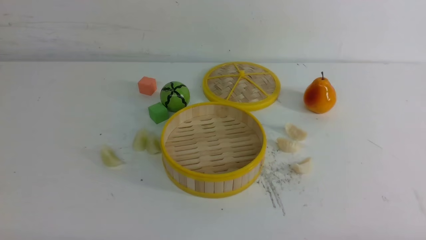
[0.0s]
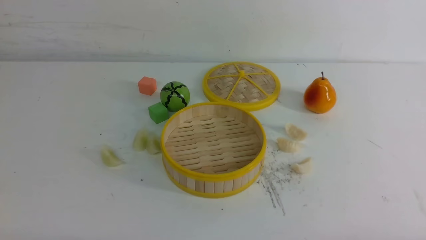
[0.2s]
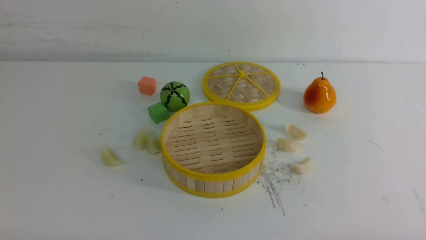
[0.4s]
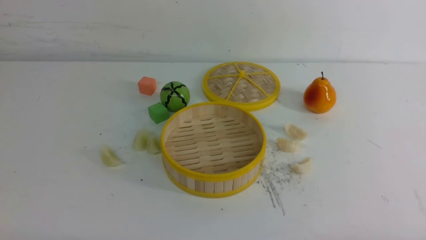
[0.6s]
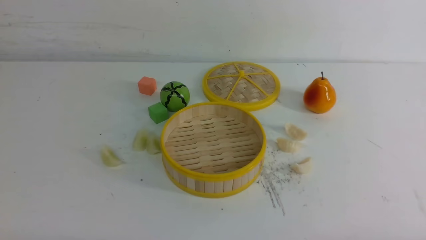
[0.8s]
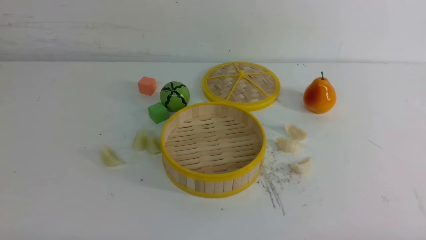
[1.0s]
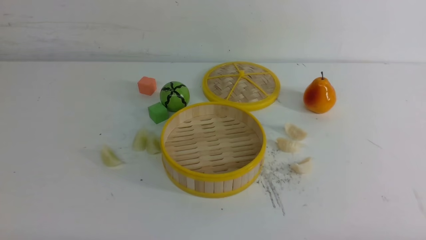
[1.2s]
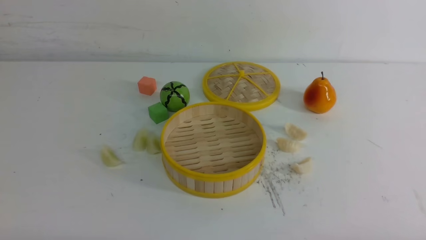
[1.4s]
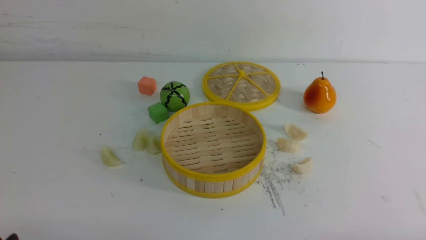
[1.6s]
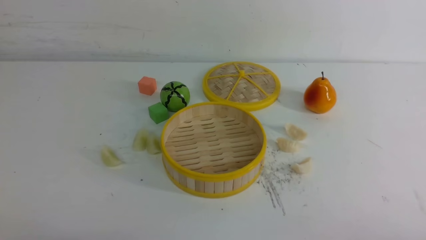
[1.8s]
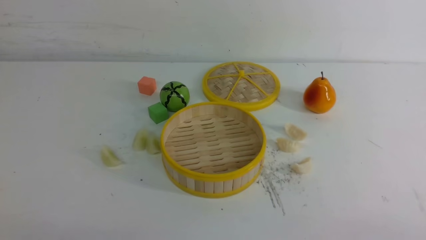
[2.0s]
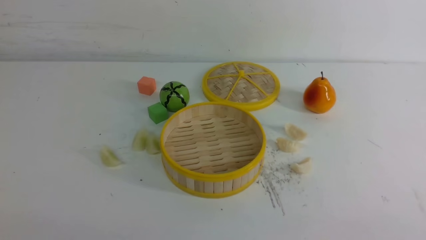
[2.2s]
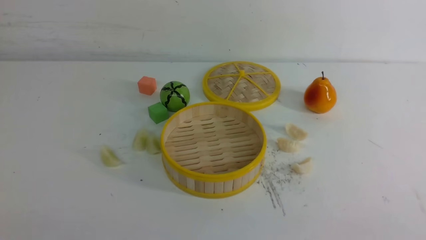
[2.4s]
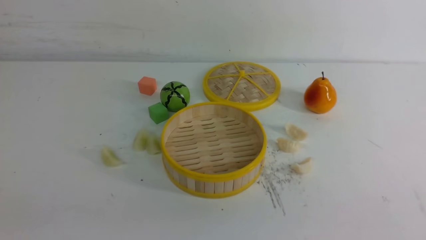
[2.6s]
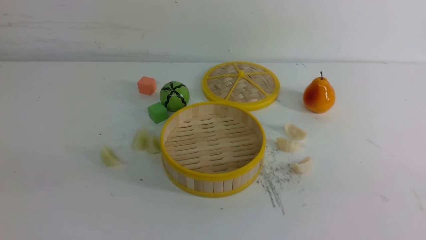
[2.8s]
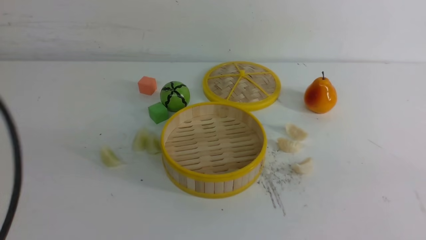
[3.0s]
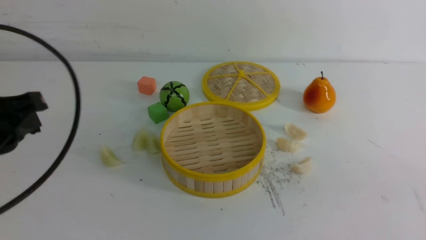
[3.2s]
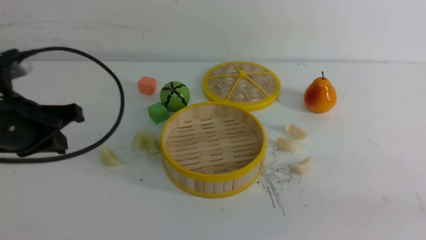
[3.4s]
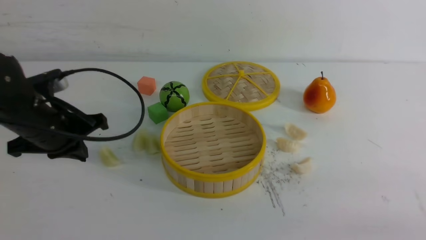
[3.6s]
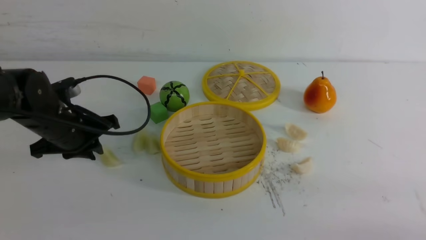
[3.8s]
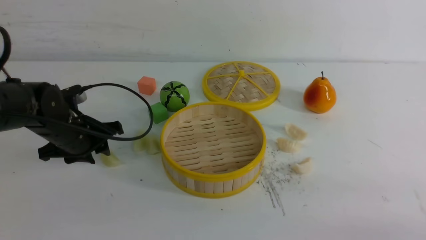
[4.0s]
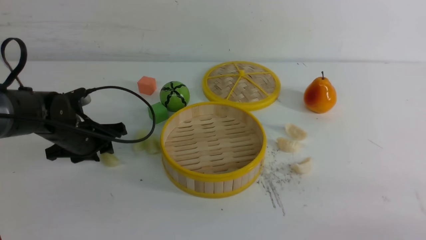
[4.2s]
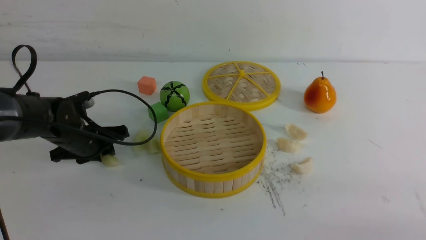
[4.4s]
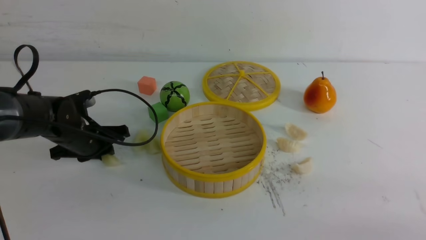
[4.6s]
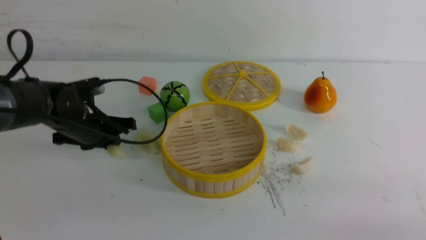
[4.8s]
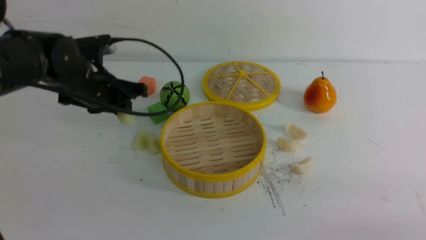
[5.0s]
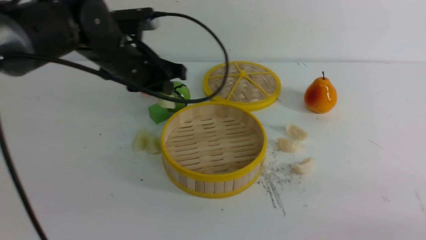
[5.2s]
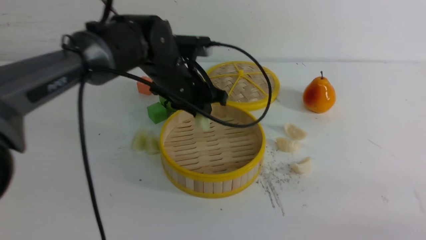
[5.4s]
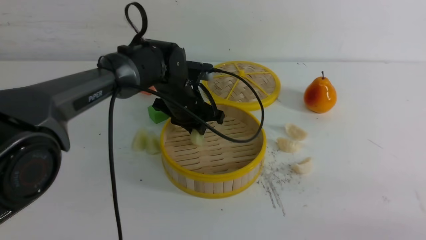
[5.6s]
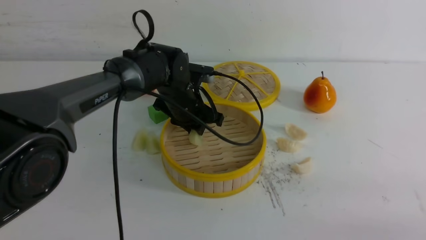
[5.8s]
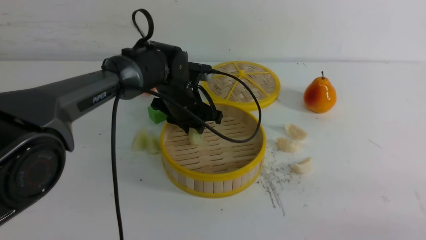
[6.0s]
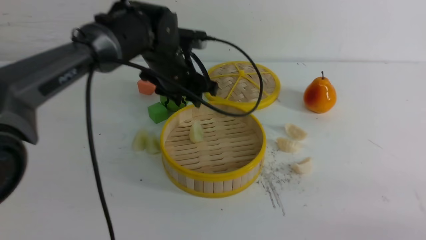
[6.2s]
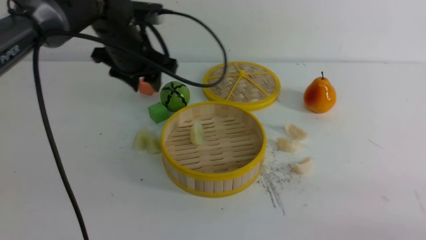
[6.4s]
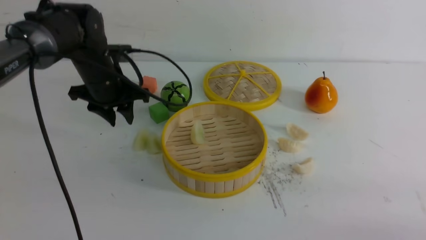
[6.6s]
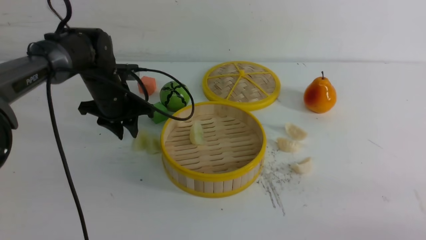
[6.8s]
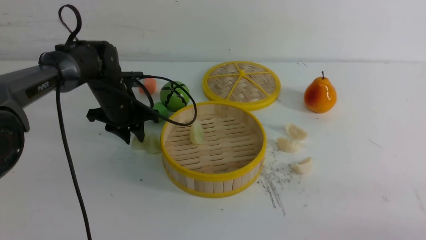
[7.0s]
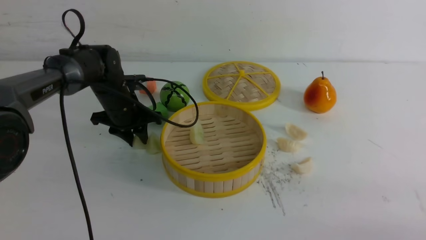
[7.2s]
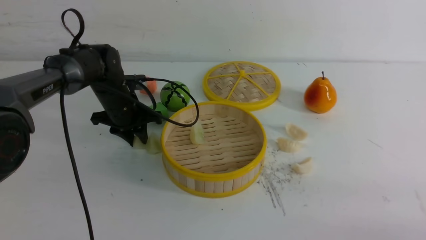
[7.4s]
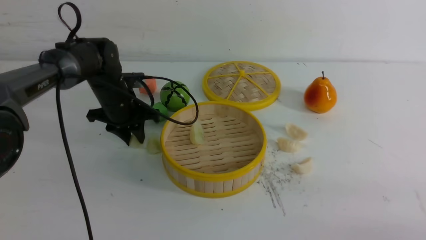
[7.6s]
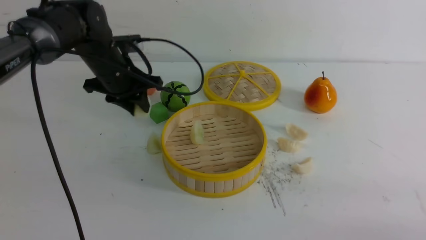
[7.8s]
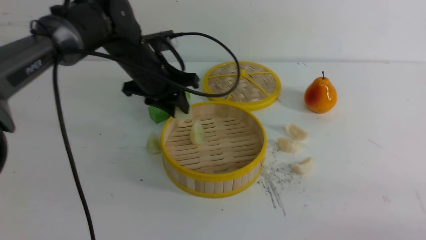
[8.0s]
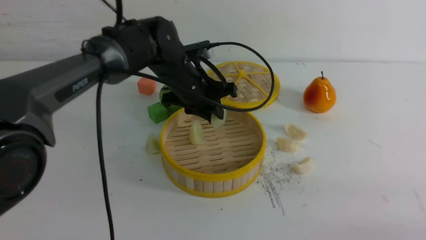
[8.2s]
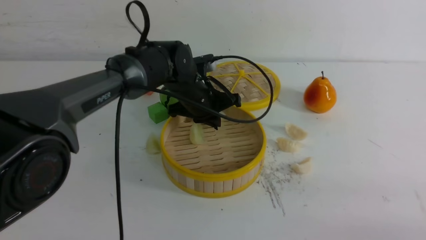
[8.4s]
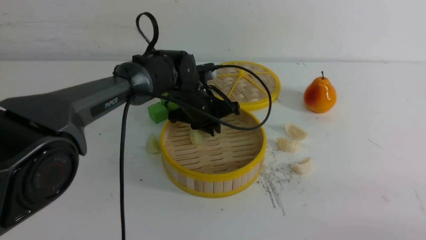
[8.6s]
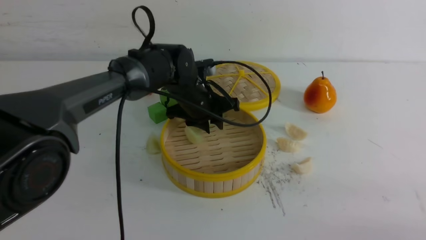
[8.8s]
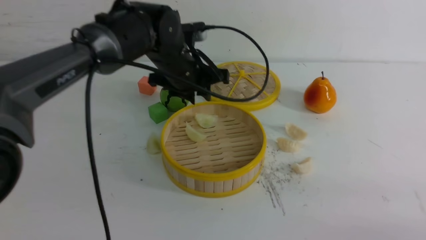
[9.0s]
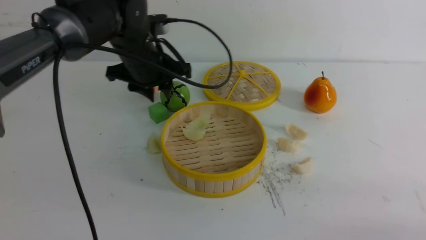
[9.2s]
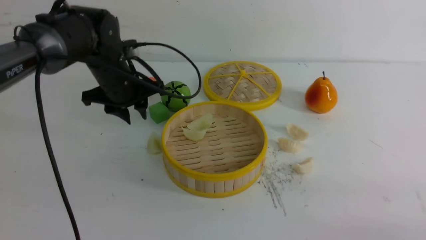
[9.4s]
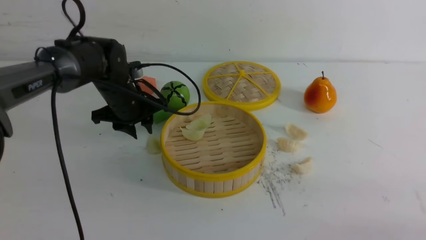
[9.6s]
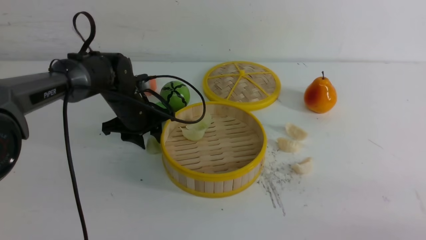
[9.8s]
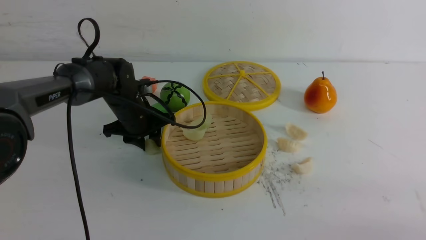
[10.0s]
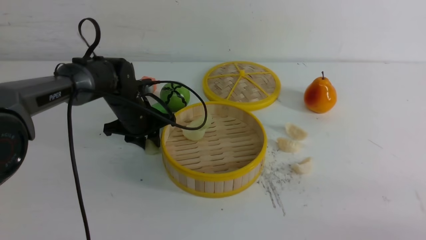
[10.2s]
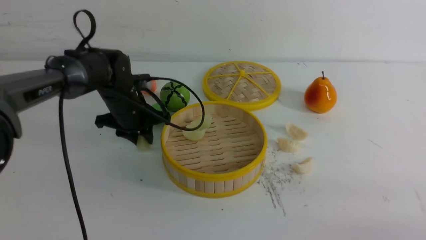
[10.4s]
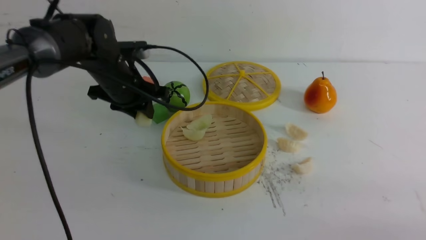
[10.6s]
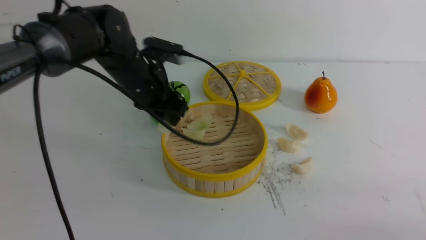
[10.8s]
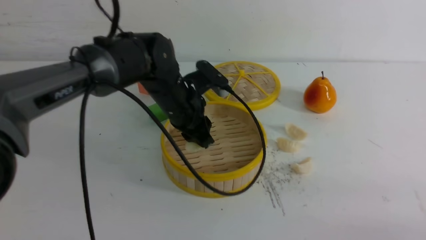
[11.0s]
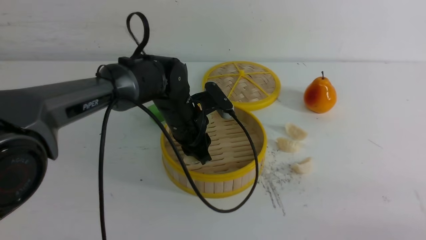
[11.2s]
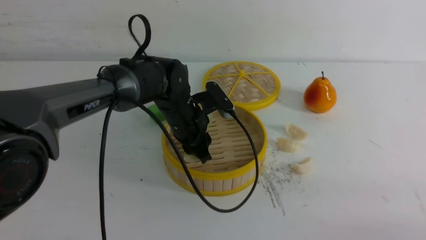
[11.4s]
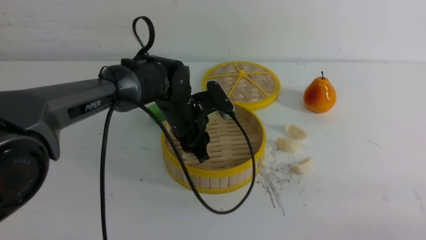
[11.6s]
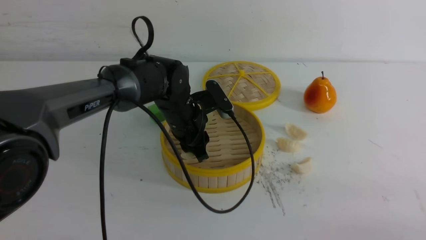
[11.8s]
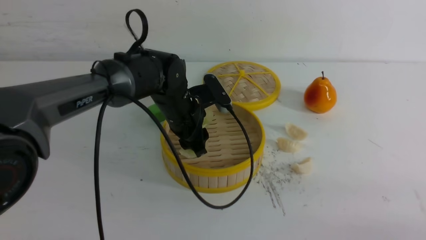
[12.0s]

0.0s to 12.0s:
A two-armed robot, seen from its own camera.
Task of the whole recording: put the dumplings into the steamer on the white table.
Step, 0.0s to 4.6s: use the left arm to grab a dumpling.
Step, 4.8s to 6.2s: use the left arm to put the dumpling into the steamer.
Step, 6.4s to 7.6s: use the left arm to grab a dumpling.
Step, 7.8s to 8.8s: use the left arm to put the dumpling into the steamer.
Step, 9.0s to 10.4s: use the left arm to grab a dumpling.
1.6s to 3.0s: The left gripper shifts roughly 20 cm upward and forward, and closes up.
3.0s to 4.4s: The left gripper shifts some 30 cm forward and downward, and opens.
4.4s to 6.0s: The left gripper is displaced to the right and upward by about 20 cm.
6.0s to 7.6s: The left gripper moves to the left, approximately 10 cm.
7.6s to 9.0s: The left gripper is displaced to the right and upward by approximately 10 cm, and closes, then opens again.
9.0s to 10.4s: The left gripper is displaced to the left and downward by approximately 10 cm.
10.4s to 12.0s: The left gripper shifts approximately 10 cm to the right.

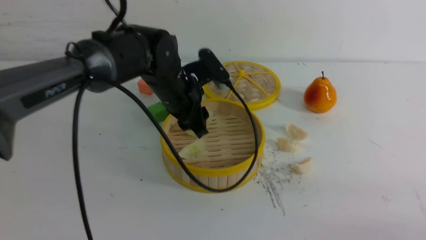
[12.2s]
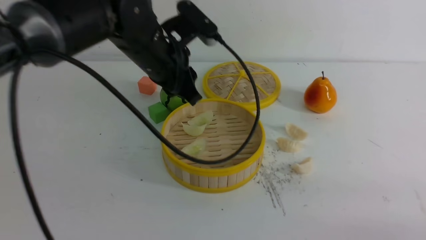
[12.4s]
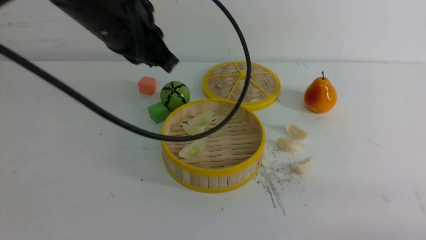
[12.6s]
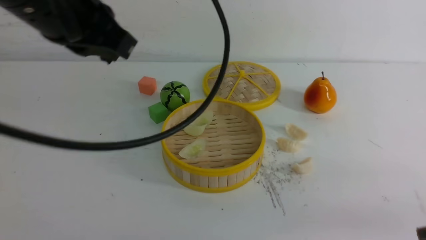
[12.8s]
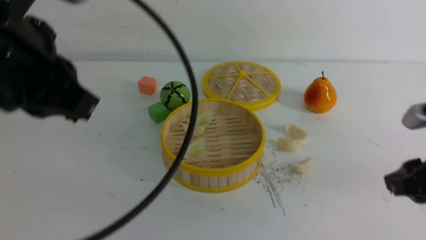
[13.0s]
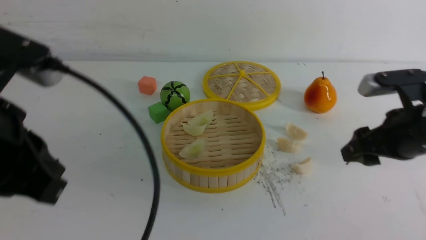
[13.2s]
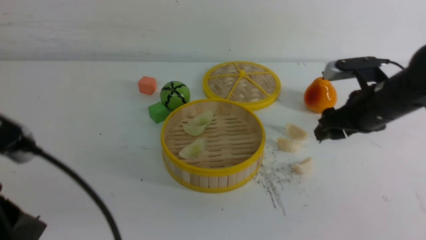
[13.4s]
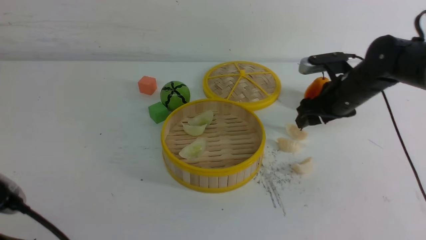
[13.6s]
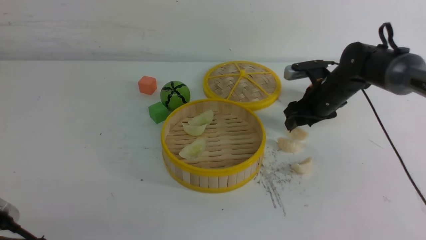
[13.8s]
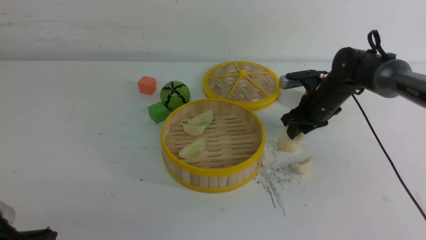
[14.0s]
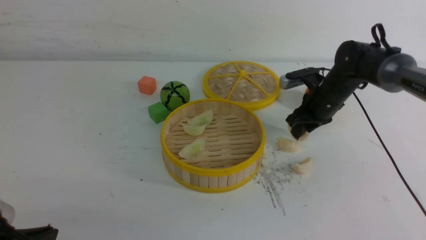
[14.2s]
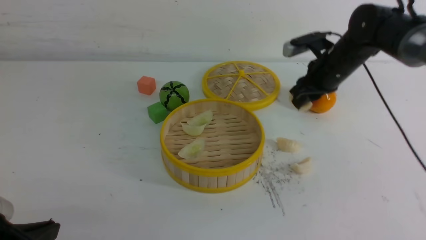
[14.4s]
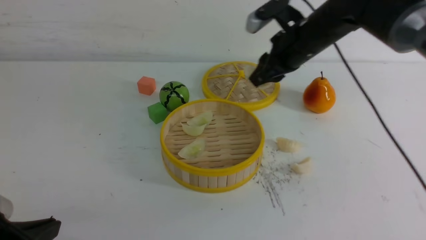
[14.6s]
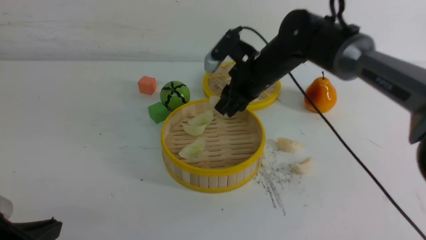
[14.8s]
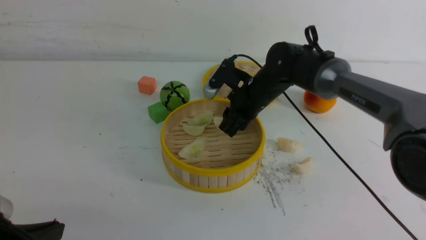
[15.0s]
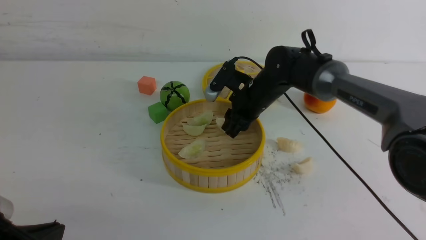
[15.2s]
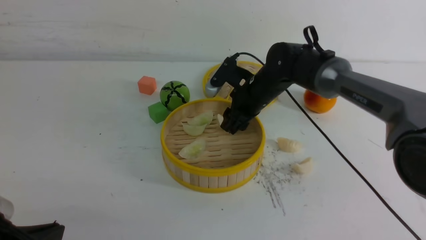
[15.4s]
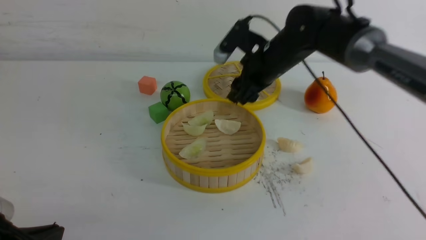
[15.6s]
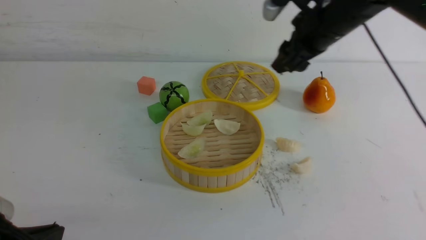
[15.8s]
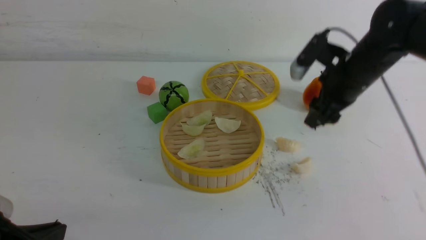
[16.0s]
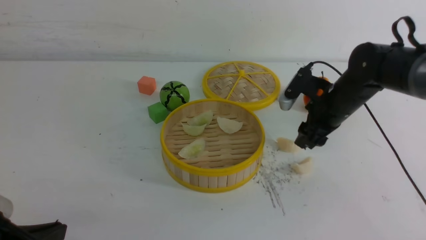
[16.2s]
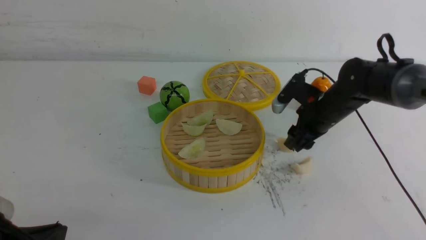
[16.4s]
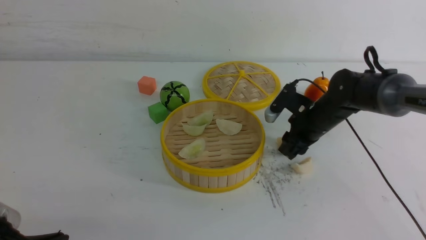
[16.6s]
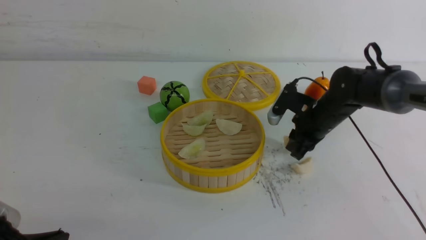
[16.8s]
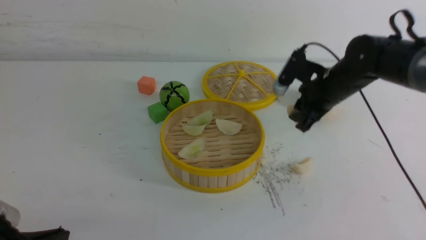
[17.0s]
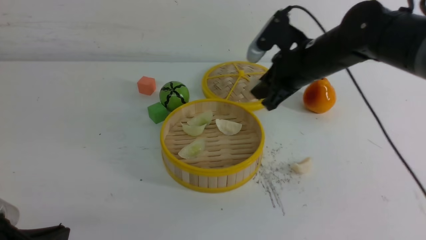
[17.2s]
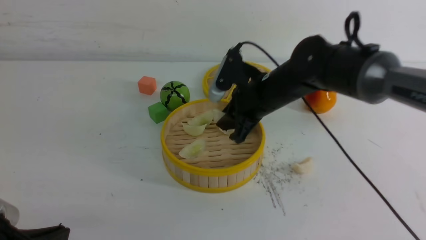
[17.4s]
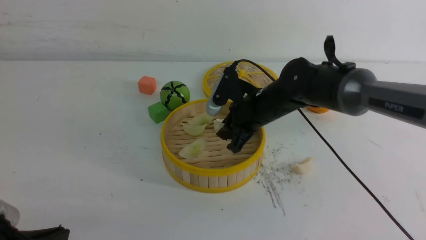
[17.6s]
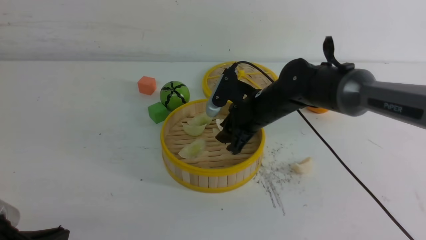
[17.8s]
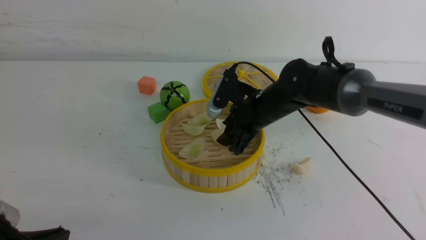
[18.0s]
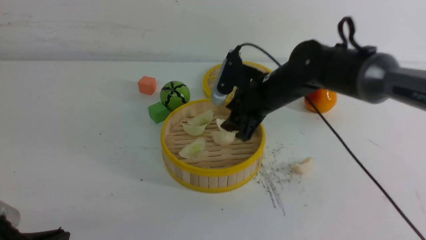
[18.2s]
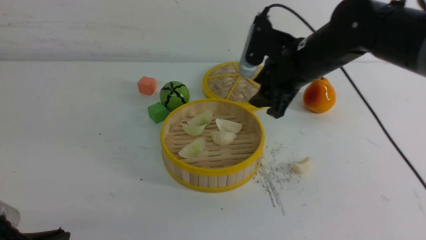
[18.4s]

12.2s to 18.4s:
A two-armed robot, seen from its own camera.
Task of the whole recording: put the dumplings into the steamer on the white table.
Step, 12.4s to 14.2s: use the right arm to grab a dumpling.
Step, 14.4s to 15.4s: use the right arm to put the dumpling into the steamer.
Step, 15.6s to 16.8s: use the right arm to grab a dumpling.
Step, 17.0s to 18.2s: use the right arm to put the dumpling into the steamer.
12.2s to 13.8s: The right gripper shifts roughly 40 cm forward, and opens, while the left gripper travels backward and to the left by some 35 cm, and closes up.
13.8s to 15.4s: The right gripper shifts about 15 cm to the left.
15.4s to 16.8s: The right gripper shifts approximately 10 cm to the right, reaches approximately 5 cm upward, then returns, and closes.
16.8s to 18.4s: The right gripper moves upward, some 10 cm, and opens.
